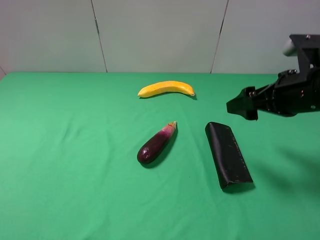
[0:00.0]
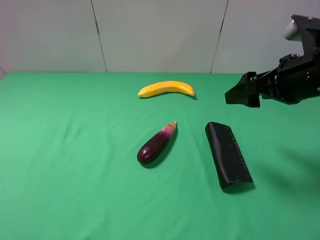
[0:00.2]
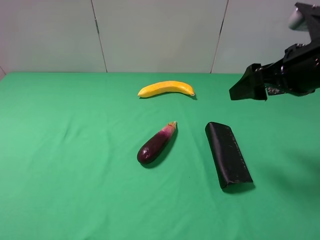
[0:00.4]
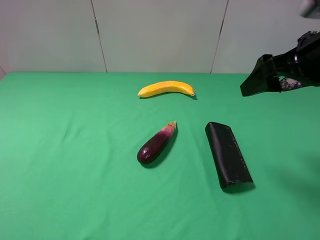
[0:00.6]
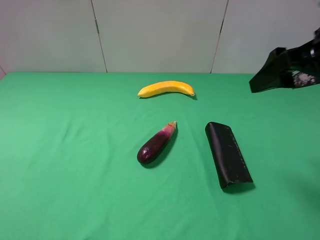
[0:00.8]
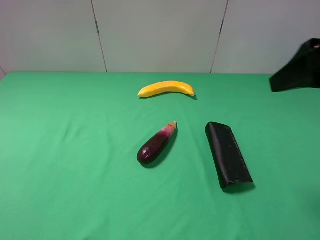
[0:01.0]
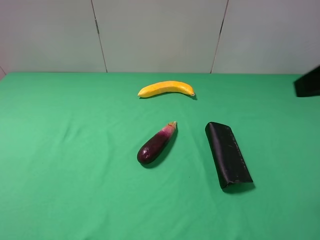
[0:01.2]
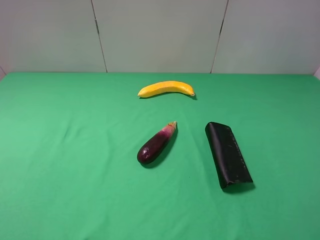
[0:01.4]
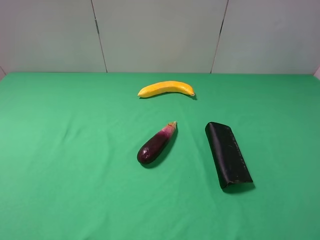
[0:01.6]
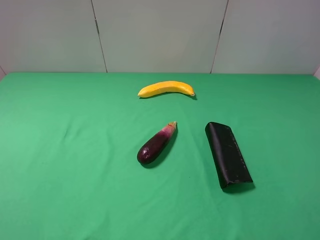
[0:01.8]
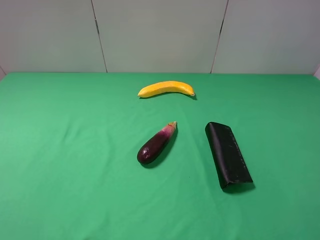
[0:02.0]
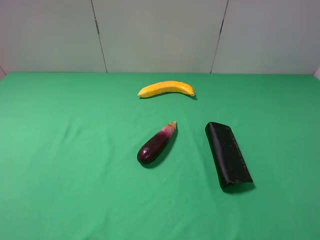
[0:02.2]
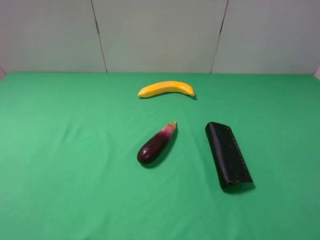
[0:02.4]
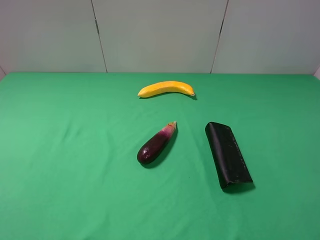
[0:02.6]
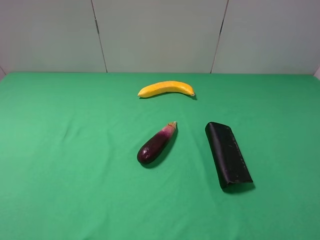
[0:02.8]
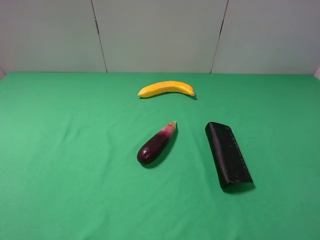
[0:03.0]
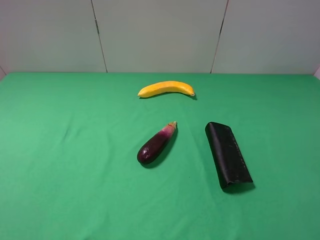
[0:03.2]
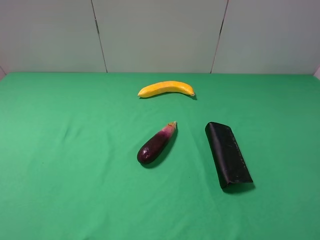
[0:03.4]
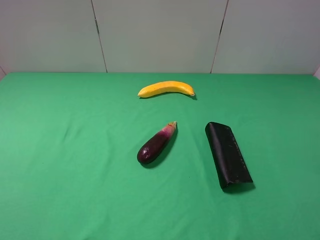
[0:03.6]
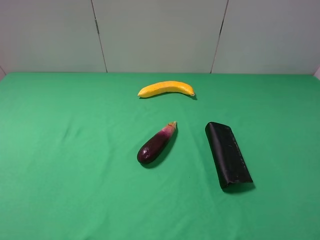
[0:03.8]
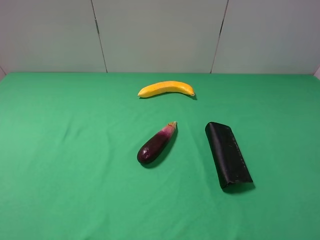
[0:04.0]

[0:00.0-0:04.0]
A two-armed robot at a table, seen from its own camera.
Task of the whole recording: use the left gripper to pick up the item and transfer it from the left gripper to the right gripper.
0:00.0 to 0:01.4: The right gripper goes roughly 20 cm backward and upward.
0:02.6 to 0:04.0: Neither gripper changes place.

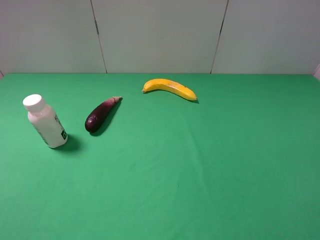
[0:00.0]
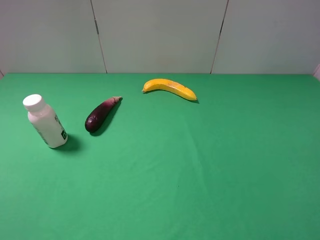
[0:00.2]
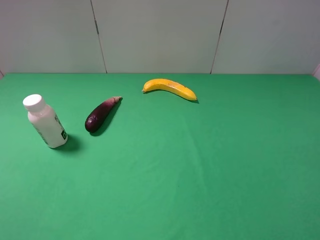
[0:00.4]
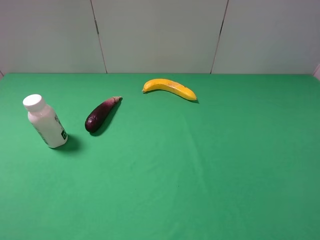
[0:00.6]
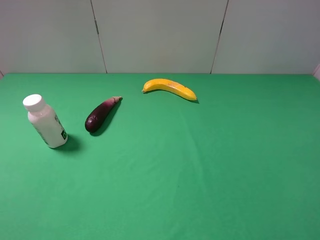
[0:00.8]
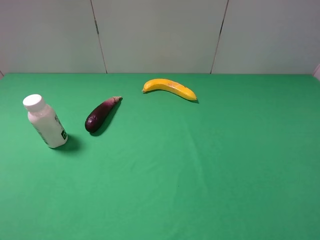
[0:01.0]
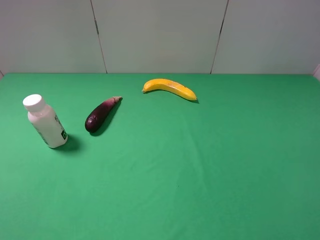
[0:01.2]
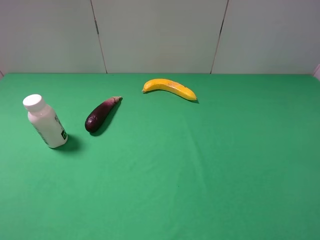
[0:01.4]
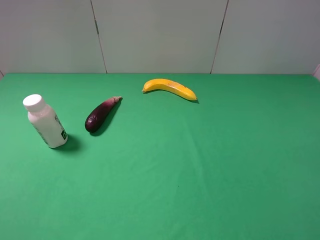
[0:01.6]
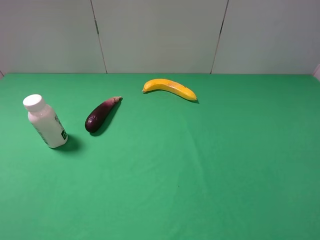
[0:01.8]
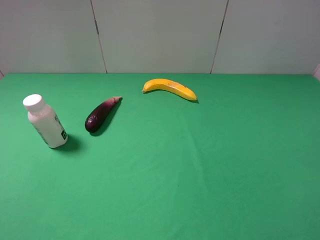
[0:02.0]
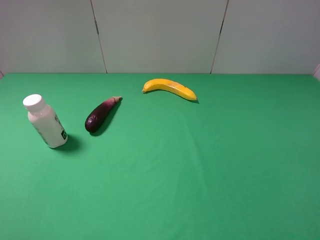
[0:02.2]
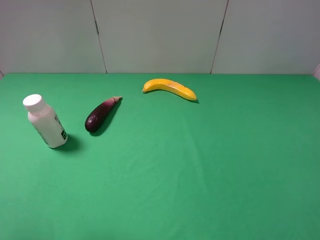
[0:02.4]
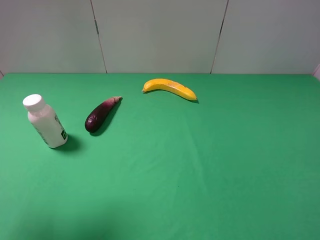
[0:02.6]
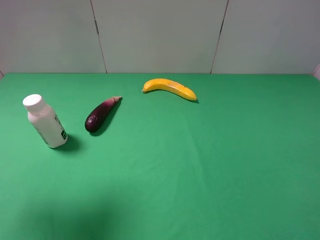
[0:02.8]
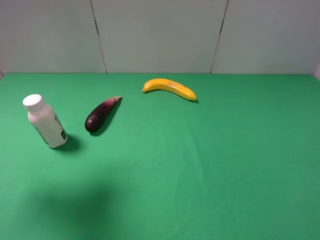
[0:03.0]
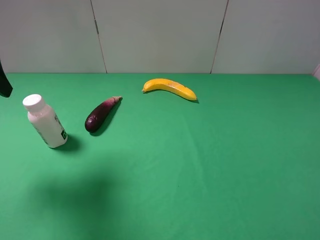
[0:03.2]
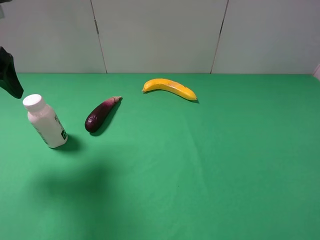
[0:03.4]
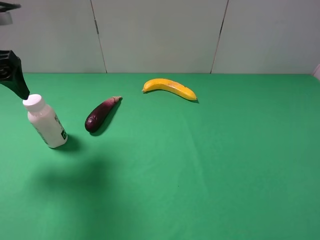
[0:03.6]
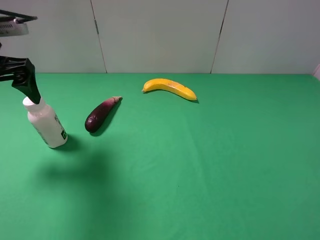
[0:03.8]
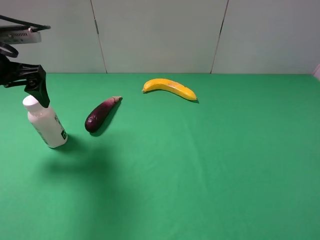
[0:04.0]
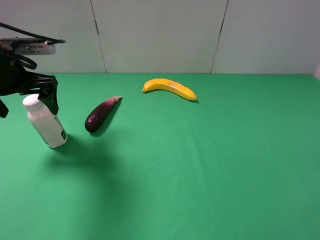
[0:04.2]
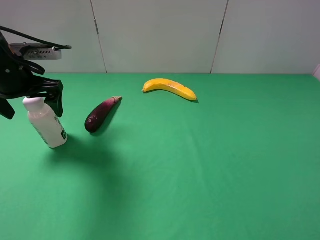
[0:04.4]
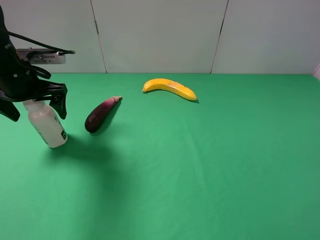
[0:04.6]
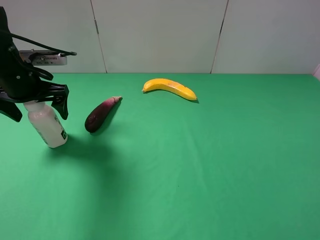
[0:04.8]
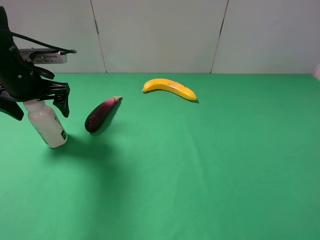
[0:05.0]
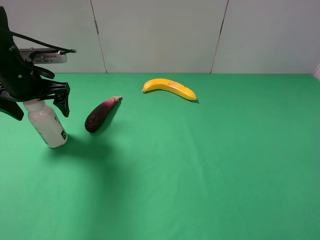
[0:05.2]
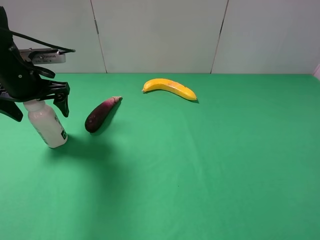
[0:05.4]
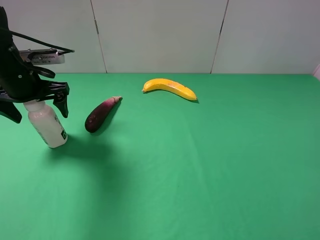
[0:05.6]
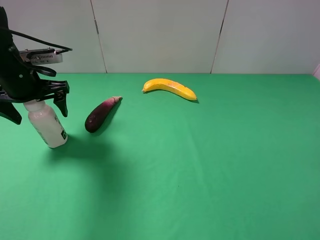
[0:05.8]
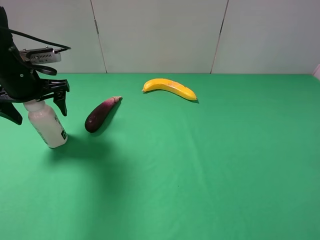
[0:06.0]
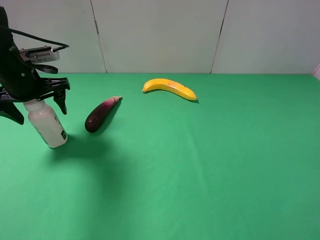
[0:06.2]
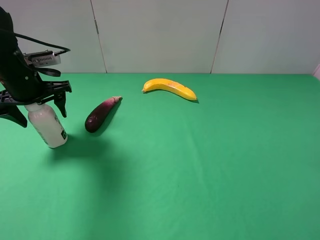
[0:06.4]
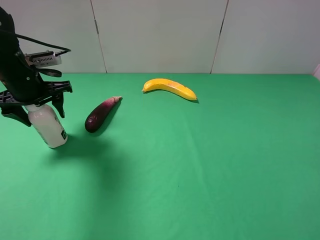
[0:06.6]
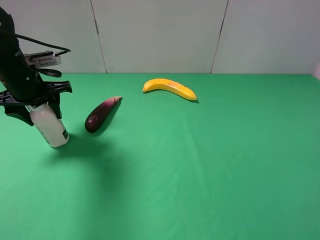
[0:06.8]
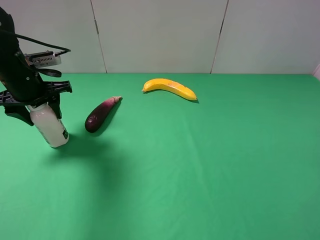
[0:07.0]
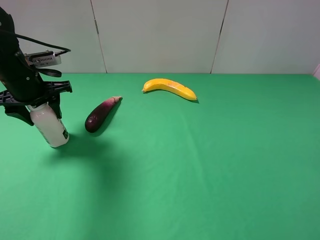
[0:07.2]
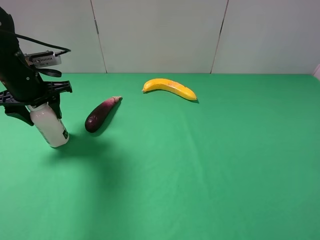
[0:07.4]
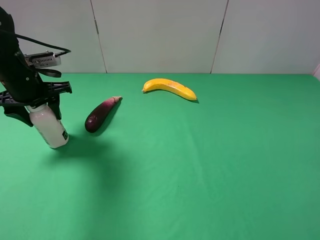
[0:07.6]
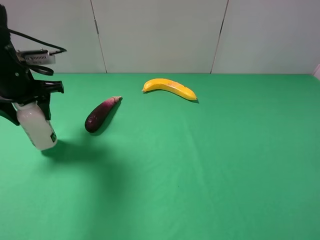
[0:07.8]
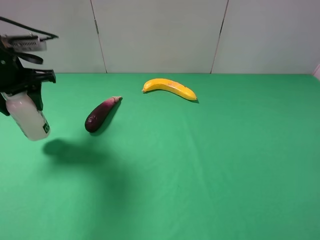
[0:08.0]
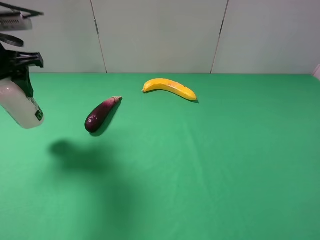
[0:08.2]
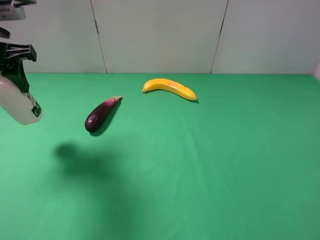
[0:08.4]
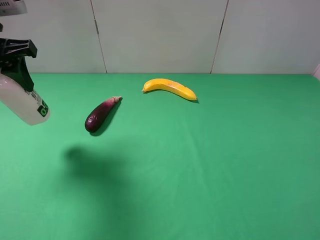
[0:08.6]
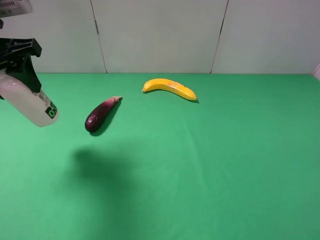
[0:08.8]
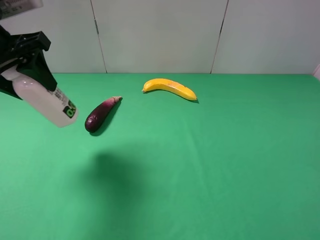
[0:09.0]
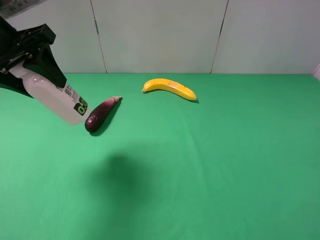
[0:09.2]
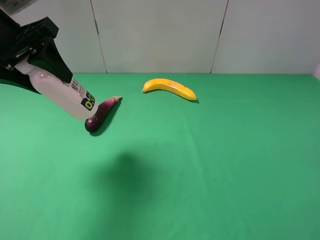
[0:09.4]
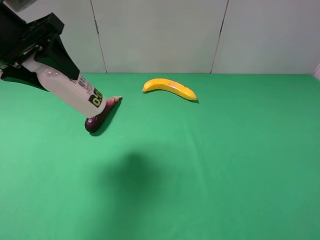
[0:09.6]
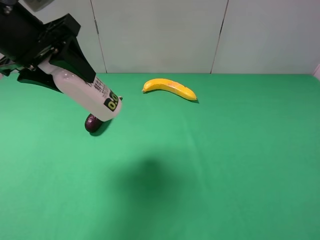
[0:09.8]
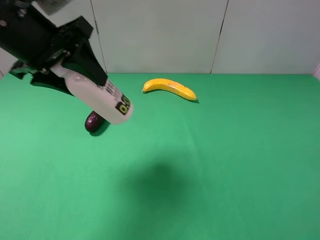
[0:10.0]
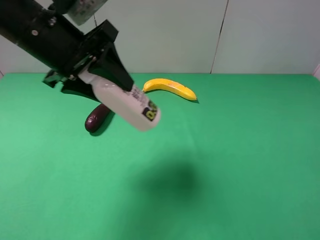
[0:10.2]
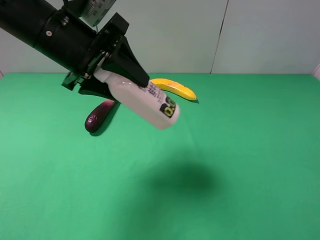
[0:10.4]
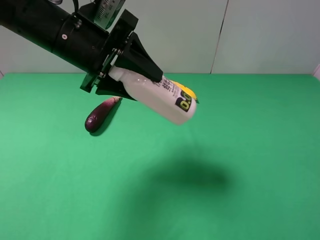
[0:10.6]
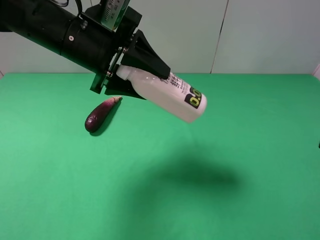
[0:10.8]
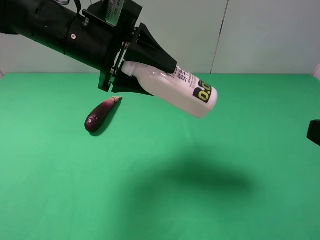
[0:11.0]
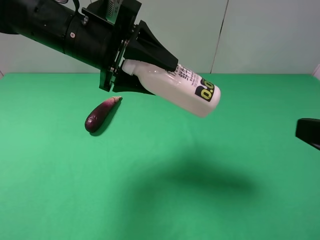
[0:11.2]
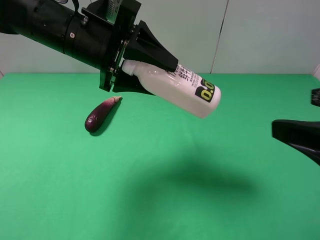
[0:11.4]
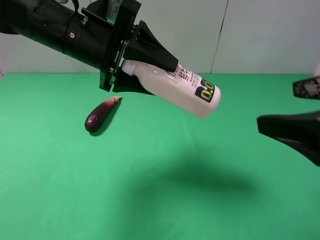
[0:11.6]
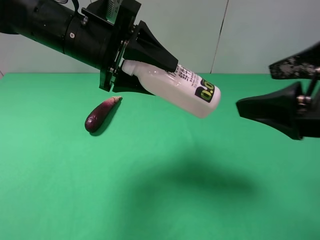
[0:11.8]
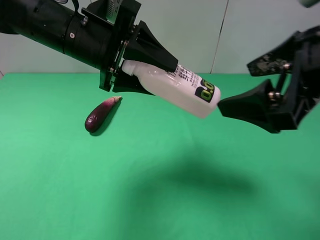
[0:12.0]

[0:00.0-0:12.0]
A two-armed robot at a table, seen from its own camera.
Task of the whole recording: use the left gripper to pick up the item and transfer it from the left gripper to the right gripper.
Step, 0:00.0 to 0:06.8: Use the left gripper to grab the milk on the left side of the table.
0:00.0 to 0:01.6: The two grippers keep their place.
0:01.6 to 0:03.0: The left gripper shifts about 20 cm forward.
0:03.0 to 0:04.4: The left gripper heads downward and forward, covering approximately 15 cm.
0:04.4 to 0:06.0: The grippers make only small movements.
0:06.0 to 0:07.6: The left gripper closes its fingers.
0:07.6 to 0:09.0: The left gripper is displaced upward and backward by about 15 cm.
0:09.0 to 0:10.4: The left gripper moves to the right, roughly 10 cm.
0:10.4 to 0:12.0: The right gripper is displaced forward and to the left by some 20 cm.

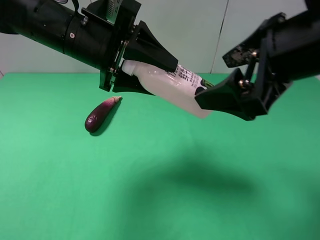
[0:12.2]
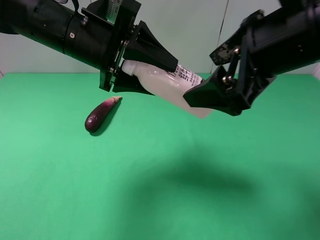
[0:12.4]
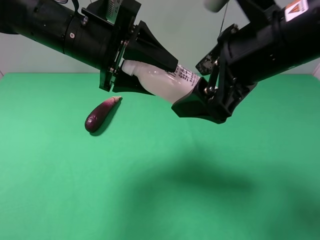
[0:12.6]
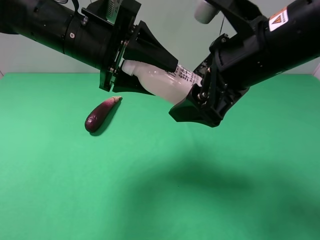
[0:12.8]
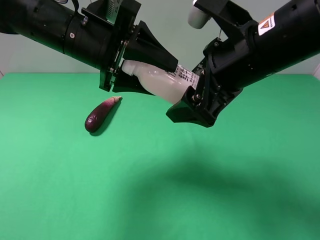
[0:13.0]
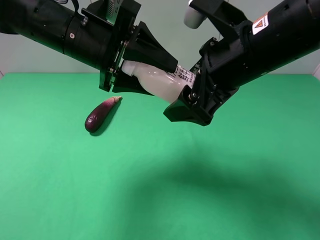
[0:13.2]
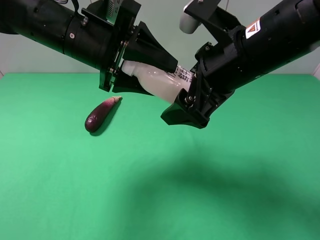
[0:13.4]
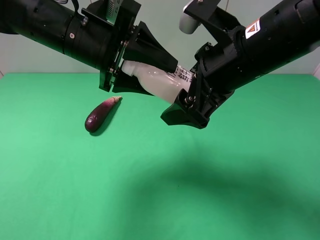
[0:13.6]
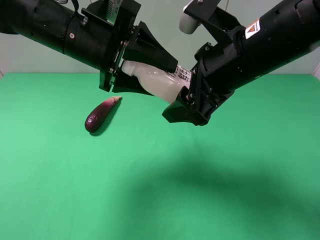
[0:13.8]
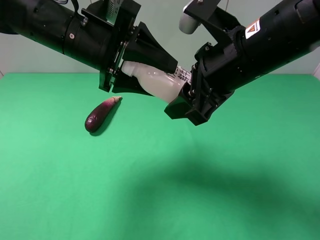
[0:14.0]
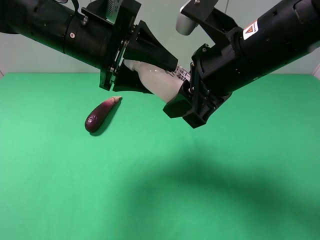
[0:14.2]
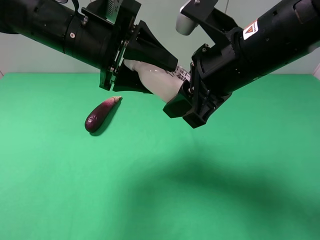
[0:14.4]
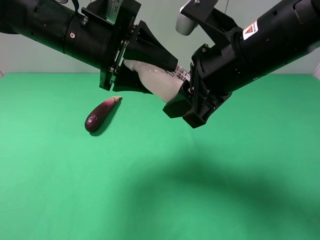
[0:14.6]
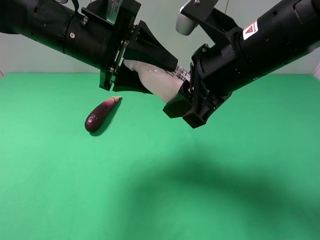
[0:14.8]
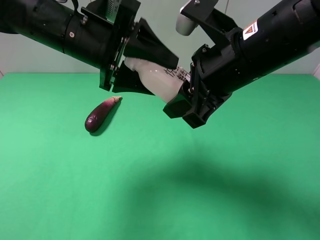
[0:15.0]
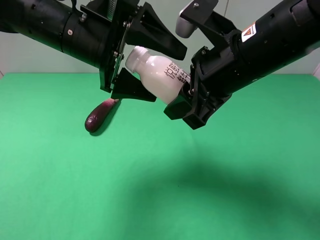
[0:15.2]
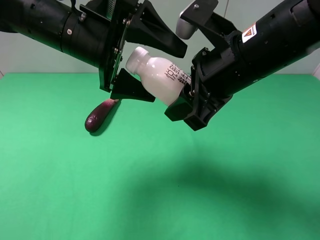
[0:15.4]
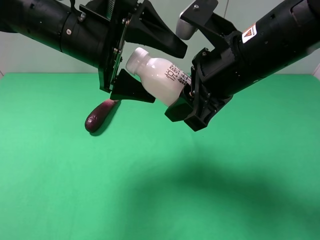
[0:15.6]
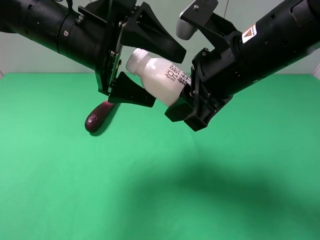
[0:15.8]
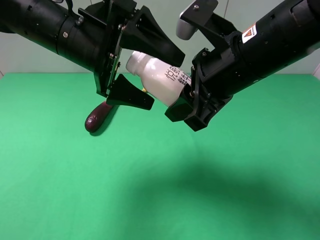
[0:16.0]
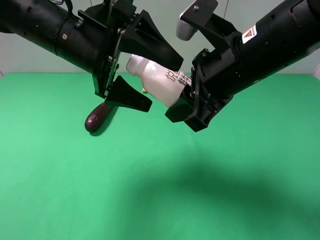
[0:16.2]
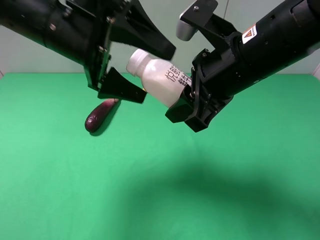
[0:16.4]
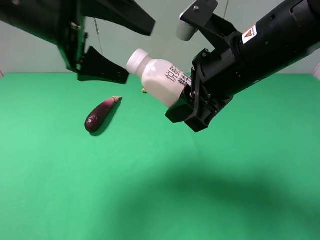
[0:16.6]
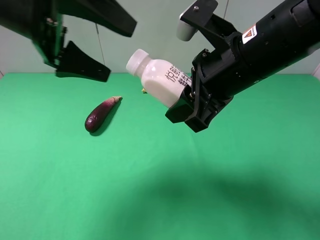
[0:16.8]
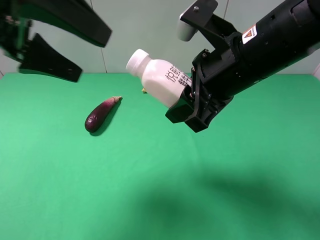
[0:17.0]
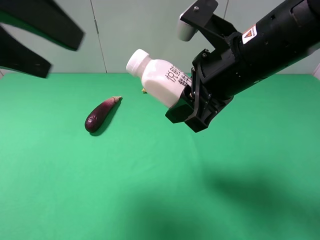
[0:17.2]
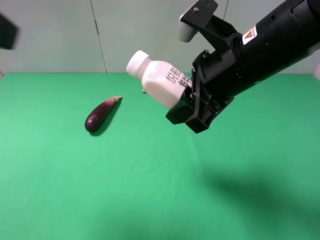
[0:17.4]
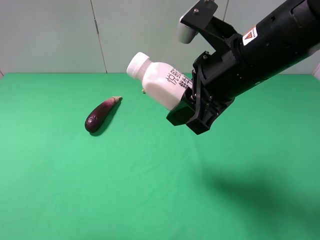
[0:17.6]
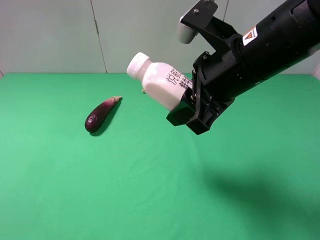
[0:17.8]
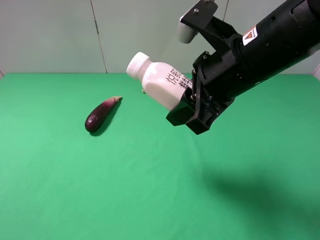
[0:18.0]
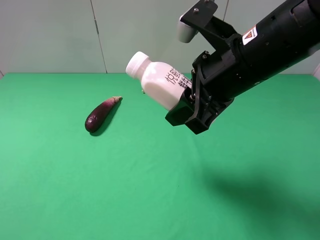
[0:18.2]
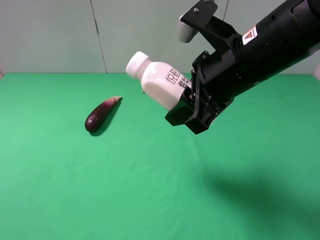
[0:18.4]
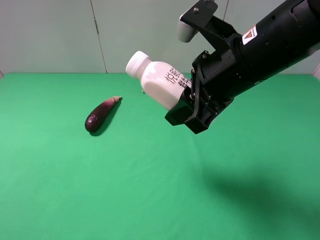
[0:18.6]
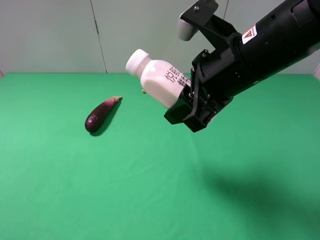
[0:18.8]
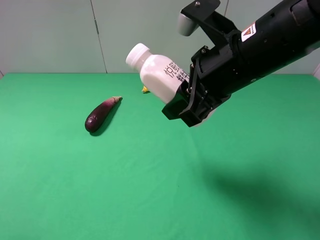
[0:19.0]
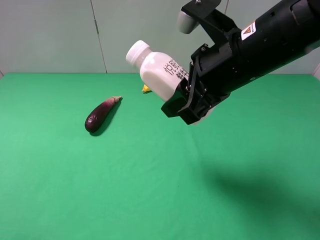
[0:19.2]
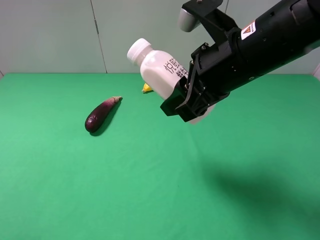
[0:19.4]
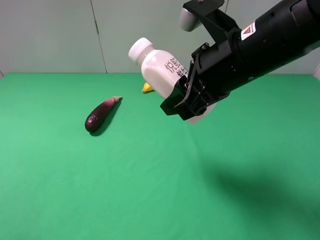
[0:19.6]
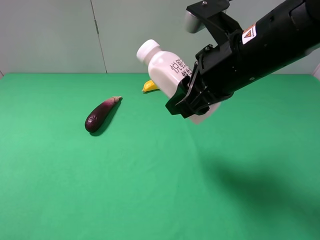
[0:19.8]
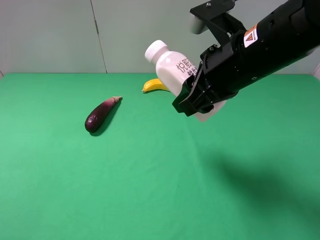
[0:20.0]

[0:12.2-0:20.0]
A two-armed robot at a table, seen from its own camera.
Task of the whole recording: use the left gripper to pick up the item and transfer it from the left gripper to the right gripper.
Step, 0:12.2 to 0:15.2: Pass the milk to the right gripper.
0:12.2 to 0:13.8: The right gripper moves roughly 5 cm, and closes up.
0:13.8 to 0:15.4: The left gripper opens its fingers, while the right gripper closes.
0:15.4 to 0:16.8: The left gripper shifts roughly 10 cm to the left and upward.
0:16.8 to 0:18.4: The left gripper is displaced backward and to the left by some 30 cm.
0:18.4 to 0:20.0: The left gripper changes place by about 5 cm.
